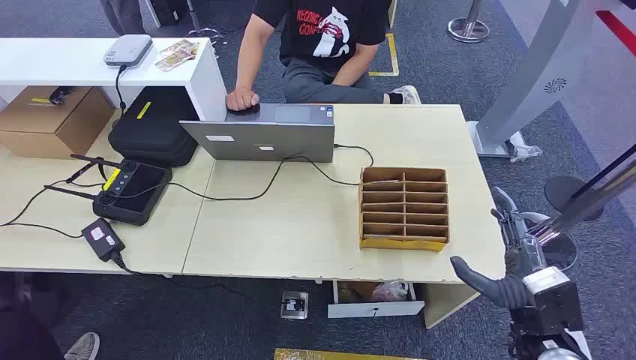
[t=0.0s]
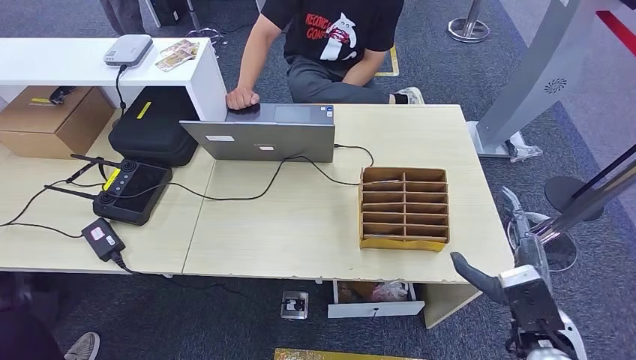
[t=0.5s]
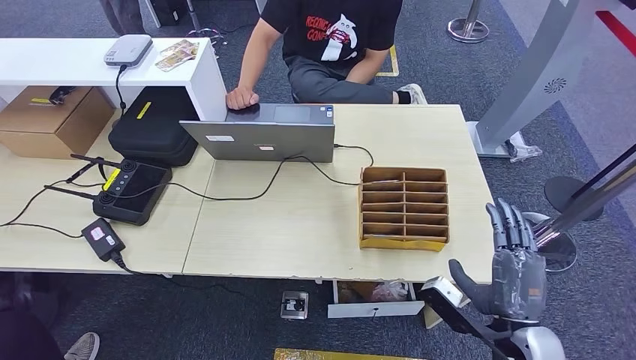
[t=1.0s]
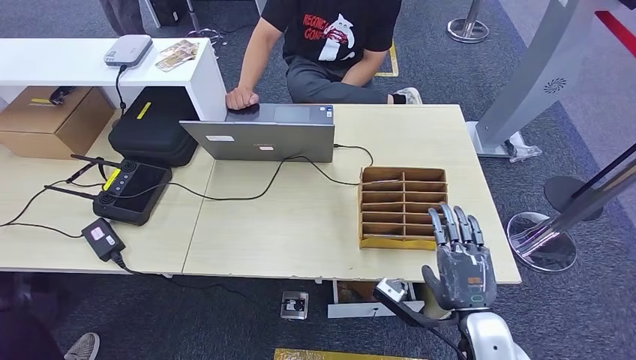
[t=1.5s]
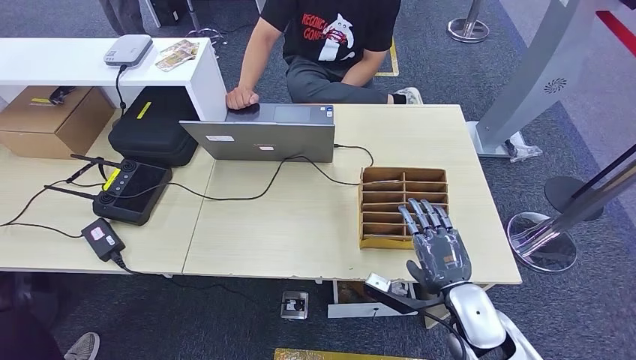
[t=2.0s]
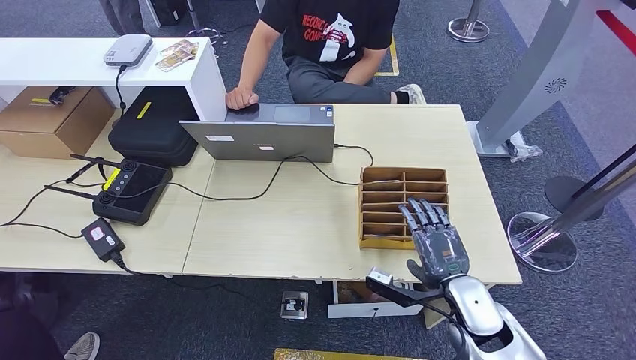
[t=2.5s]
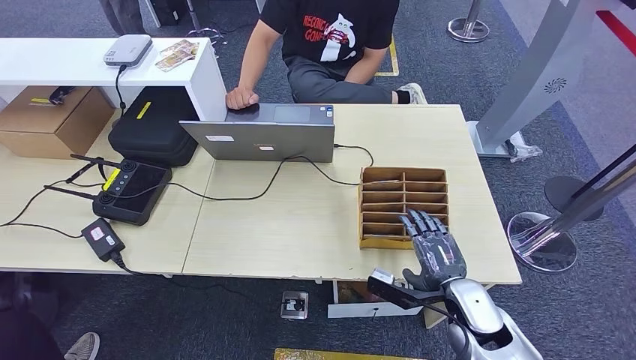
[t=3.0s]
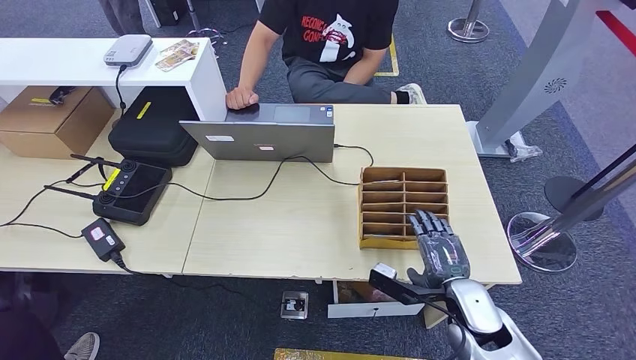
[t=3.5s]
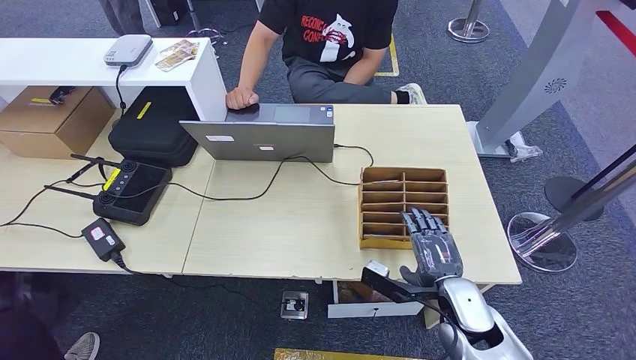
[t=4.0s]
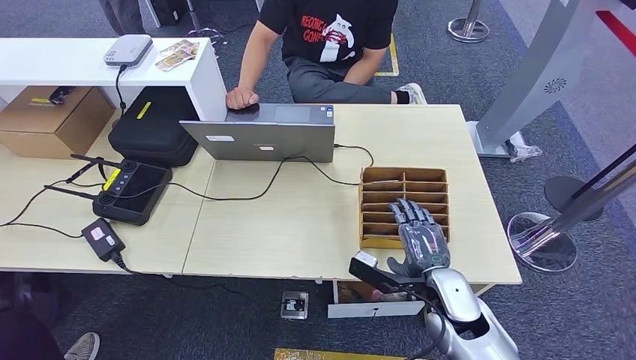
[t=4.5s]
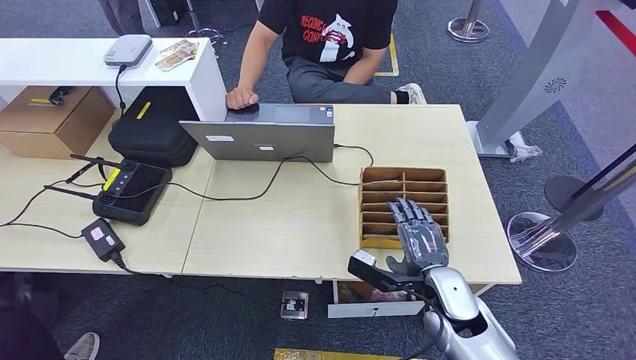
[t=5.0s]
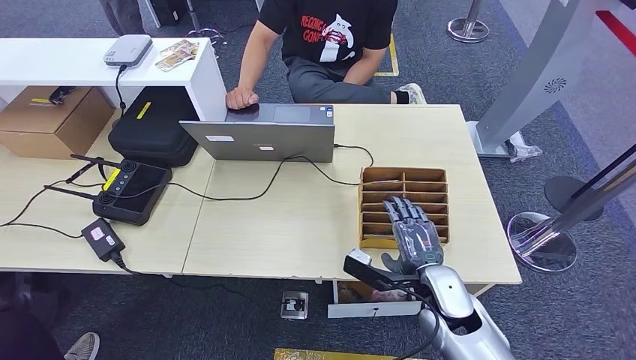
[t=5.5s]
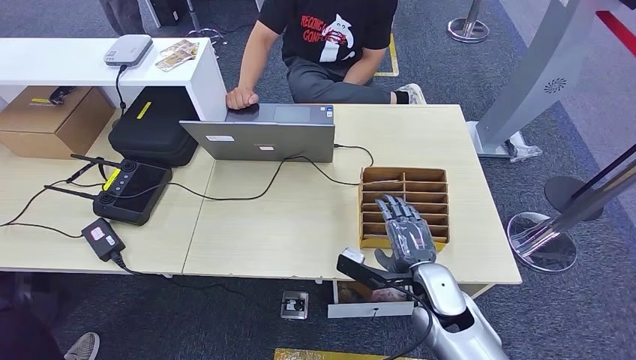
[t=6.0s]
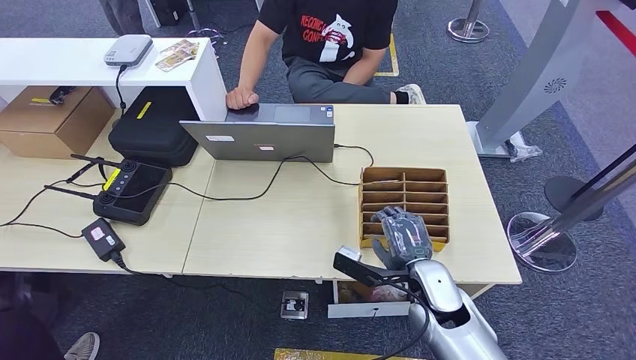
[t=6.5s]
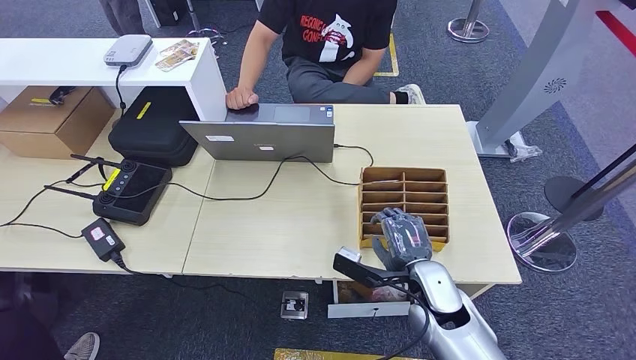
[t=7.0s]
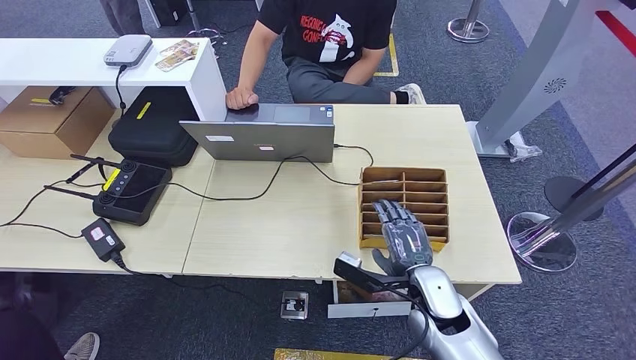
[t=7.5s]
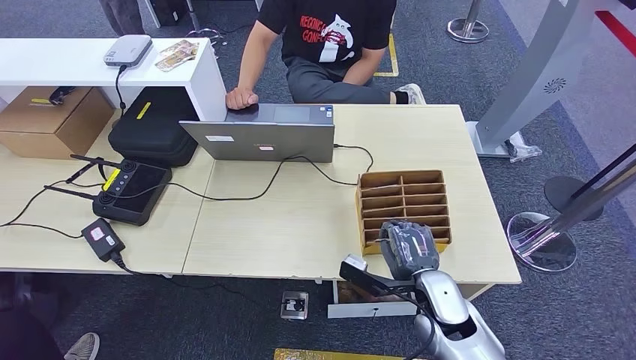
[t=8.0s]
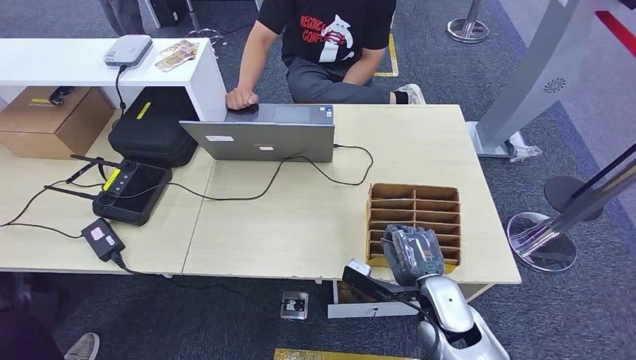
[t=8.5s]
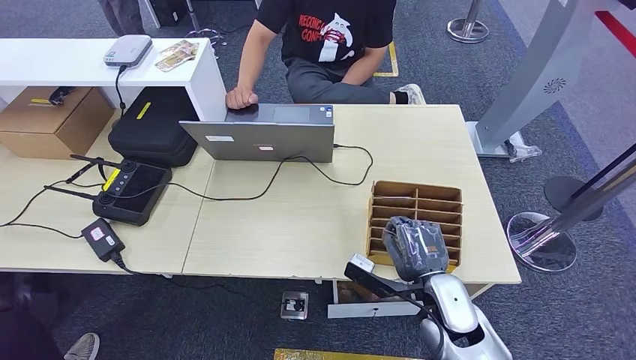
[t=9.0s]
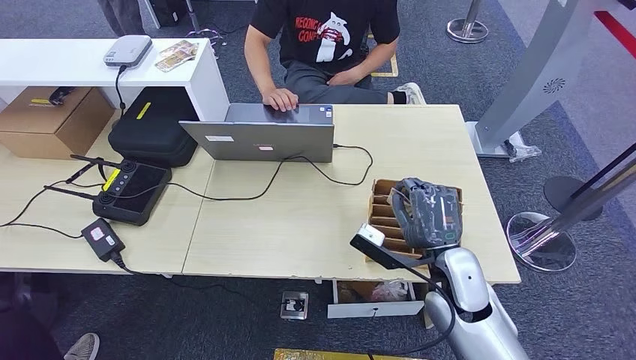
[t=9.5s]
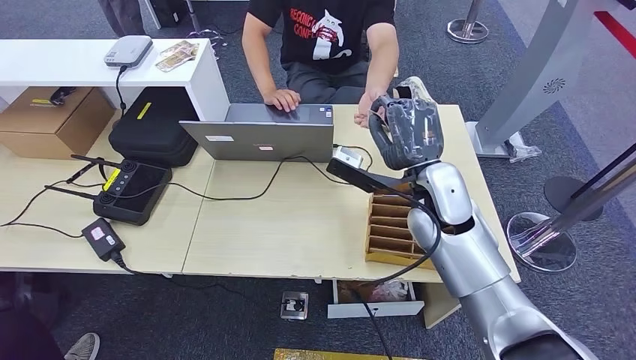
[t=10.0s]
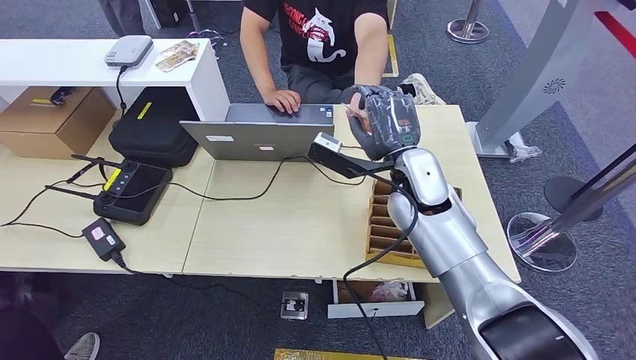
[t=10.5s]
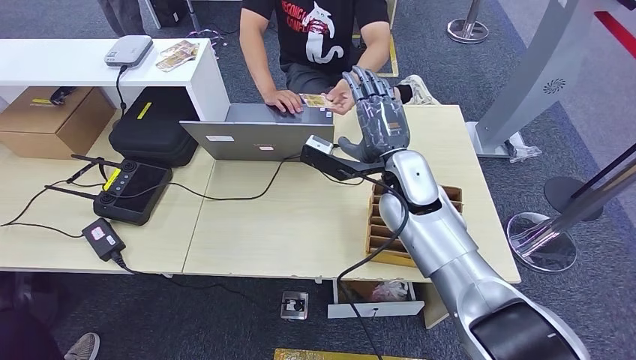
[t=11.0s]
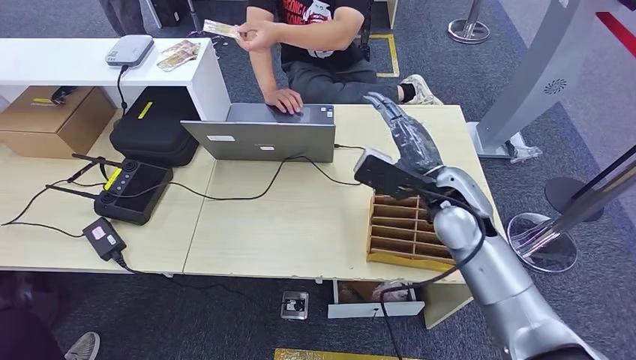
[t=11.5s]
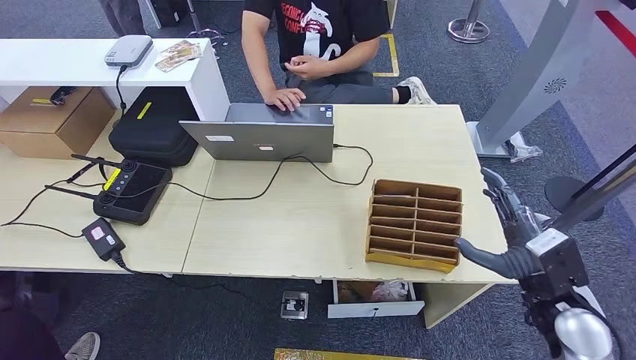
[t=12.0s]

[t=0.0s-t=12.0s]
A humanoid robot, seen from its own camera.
Step, t=0.0s to t=9.0s: Pick up the key card from the card box.
Step, t=10.0s to t=12.0s: Hand the key card to the target.
t=2.0s to t=4.0s: The hands stay close to where they were, moving slightly.
t=4.0s to t=6.0s: The right hand shifts by approximately 5 cm.
t=6.0s to t=8.0s: Both hands stay about where they are.
t=8.0s to t=10.0s: The right hand moves upward and forward, some 20 cm.
t=10.0s to t=12.0s: The right hand shifts about 25 cm to the right, backward and downward.
